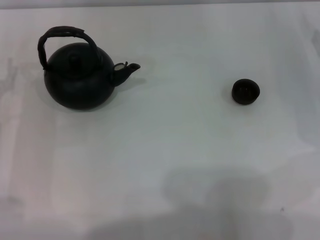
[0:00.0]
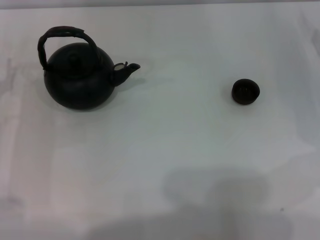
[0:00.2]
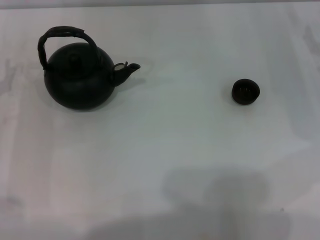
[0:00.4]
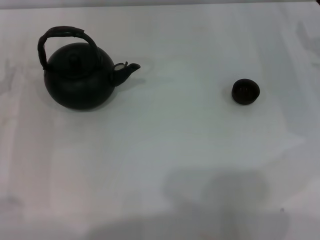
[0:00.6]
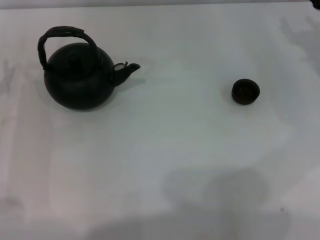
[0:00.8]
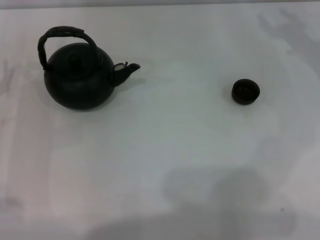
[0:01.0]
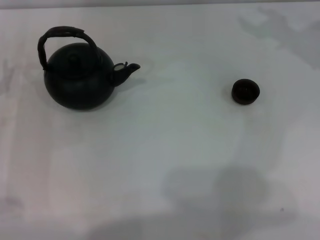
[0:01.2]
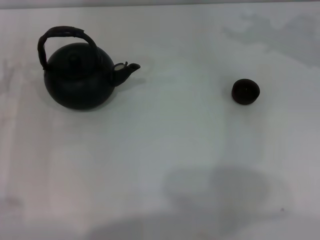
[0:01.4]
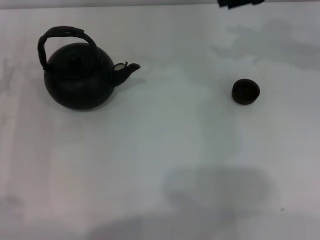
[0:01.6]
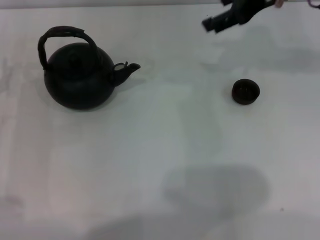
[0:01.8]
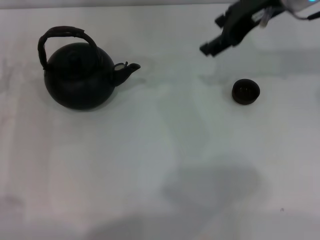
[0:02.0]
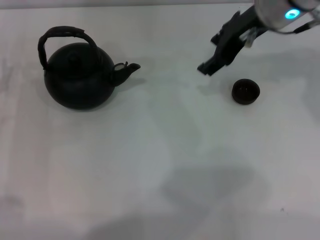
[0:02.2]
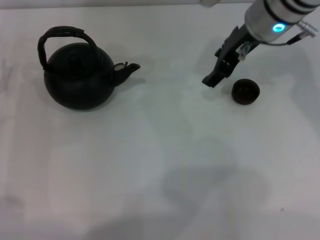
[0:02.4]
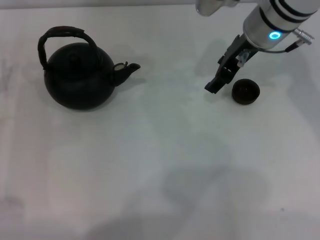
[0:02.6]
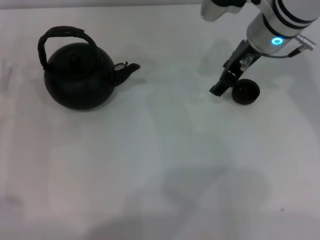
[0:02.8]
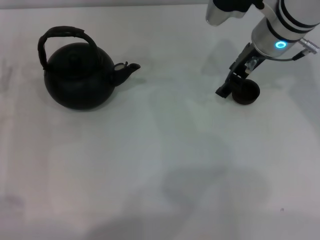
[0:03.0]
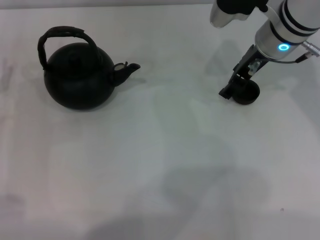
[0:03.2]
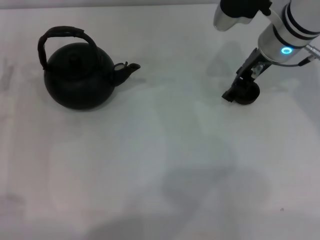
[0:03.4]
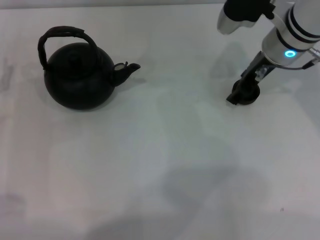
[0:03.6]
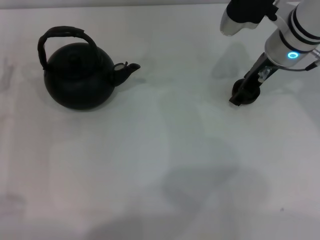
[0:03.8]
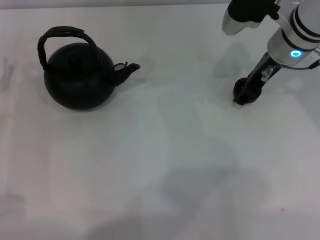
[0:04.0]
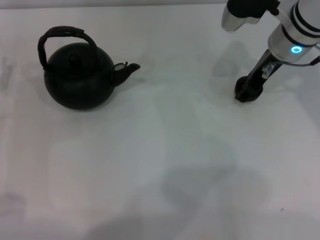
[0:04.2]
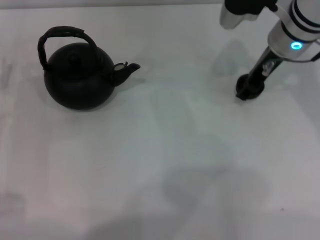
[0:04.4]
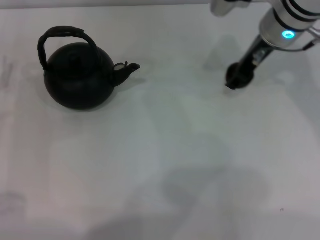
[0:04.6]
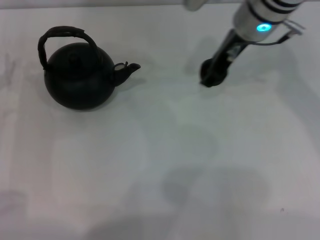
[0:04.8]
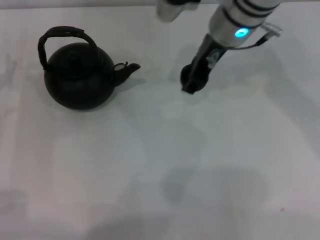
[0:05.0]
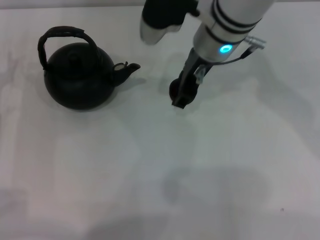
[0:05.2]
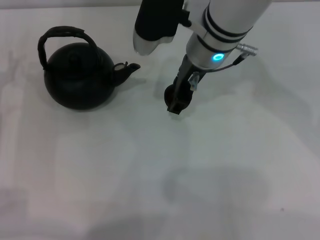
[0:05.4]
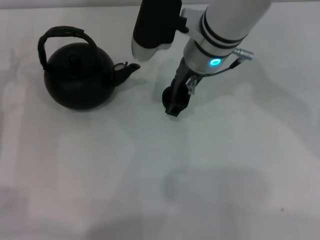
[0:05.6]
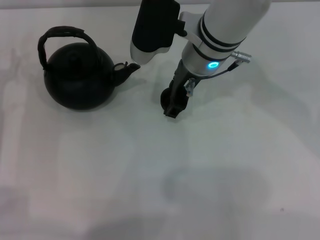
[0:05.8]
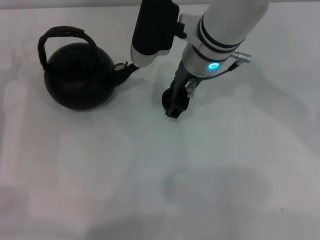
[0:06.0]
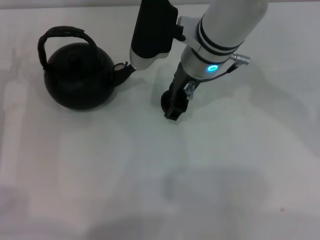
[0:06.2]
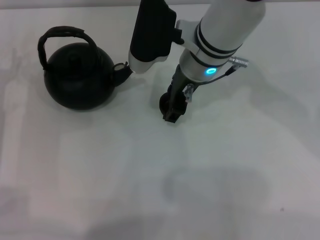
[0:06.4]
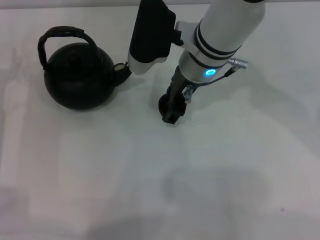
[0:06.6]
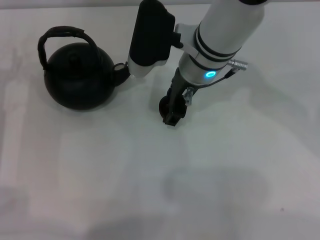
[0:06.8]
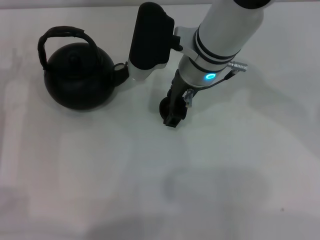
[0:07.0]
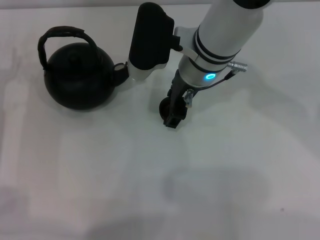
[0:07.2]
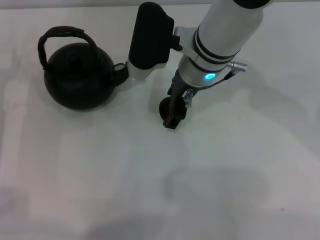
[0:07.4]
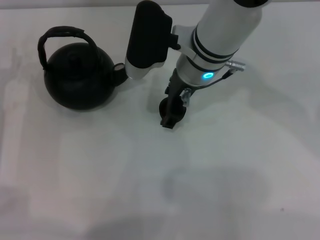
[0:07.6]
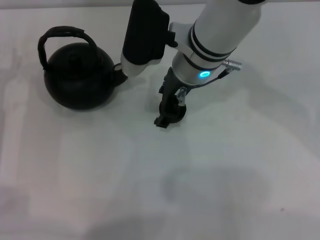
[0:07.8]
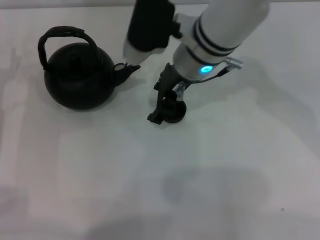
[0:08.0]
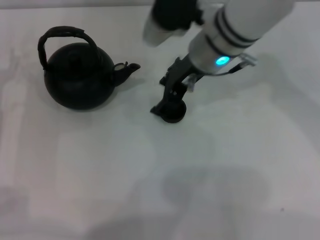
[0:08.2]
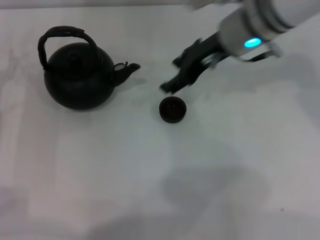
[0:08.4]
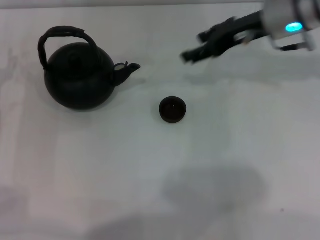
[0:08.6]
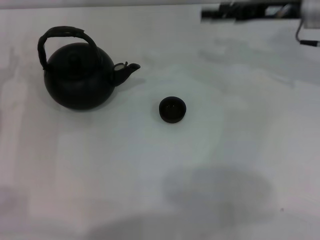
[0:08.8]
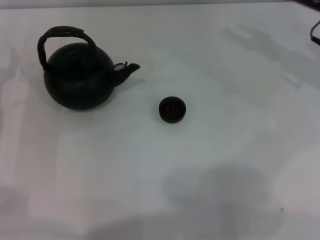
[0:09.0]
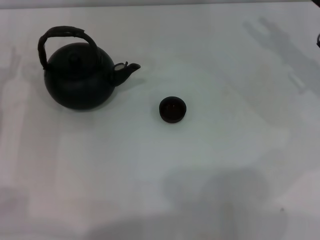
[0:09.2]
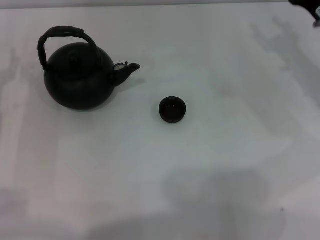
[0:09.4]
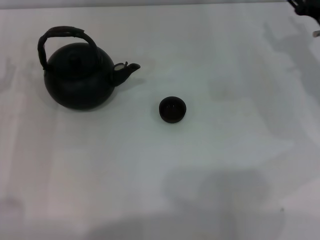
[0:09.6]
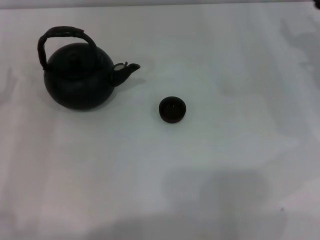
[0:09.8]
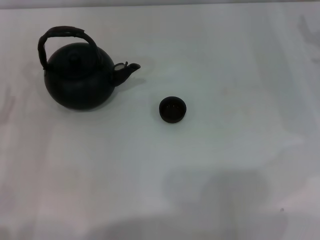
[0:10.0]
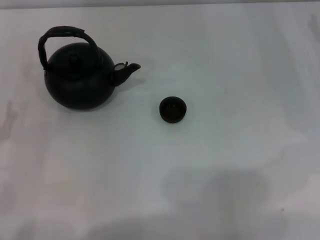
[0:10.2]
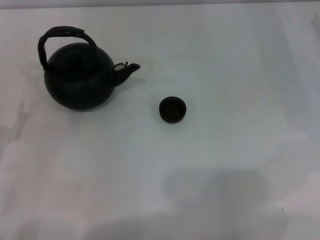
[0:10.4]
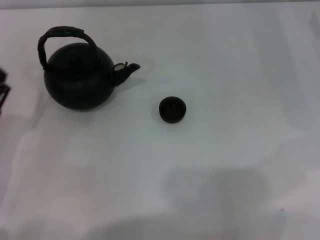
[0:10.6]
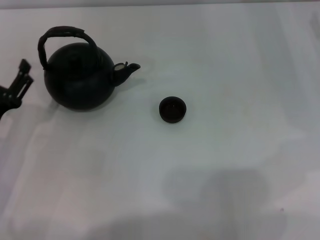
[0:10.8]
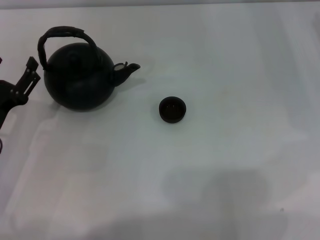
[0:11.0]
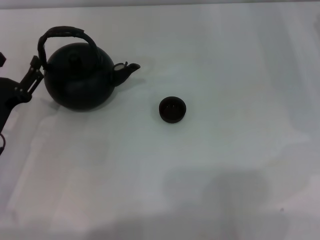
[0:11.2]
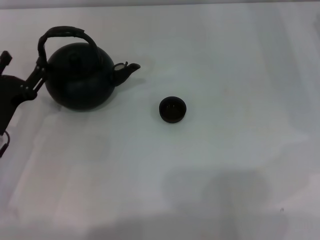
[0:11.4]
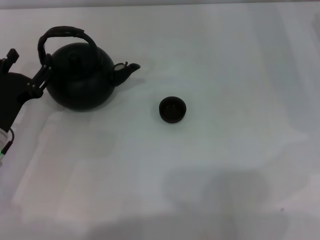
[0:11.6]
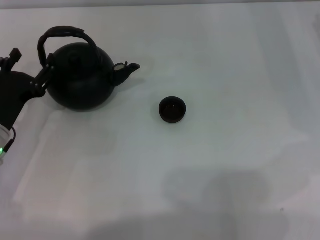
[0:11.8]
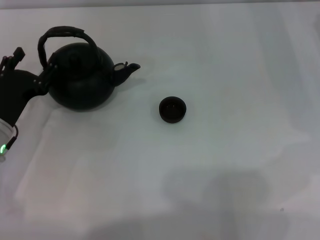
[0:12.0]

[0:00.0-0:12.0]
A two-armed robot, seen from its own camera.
Task of the whole recording: Grasp the handle of the teapot with one hand and pour tea into the teacup.
Step, 0:00.0 to 0:05.0: Pick up the teacup with the right gripper.
Step, 0:05.2 to 0:08.2: Place the teacup in the center of view with the right gripper.
0:01.6 to 0:03.0: The right gripper travels to the left and downward by roughly 10 cm.
0:03.0 to 0:04.4: The grippers stay close to where they were, moving slightly.
0:04.4 to 0:06.0: The right gripper travels to the left by approximately 10 cm.
0:06.0 to 0:07.6: Both grippers stay about where they are.
0:07.6 to 0:09.0: The right gripper shifts about 25 cm to the right.
0:10.4 to 0:12.0: The left gripper heads forward, covering about 10 cm.

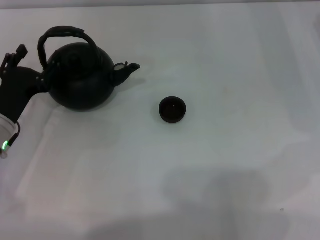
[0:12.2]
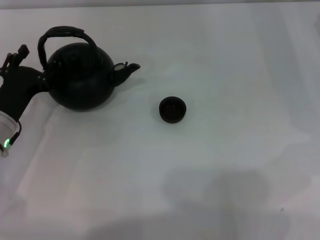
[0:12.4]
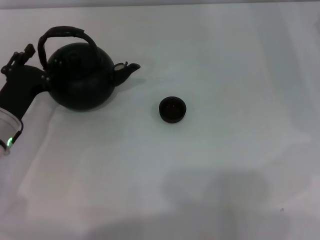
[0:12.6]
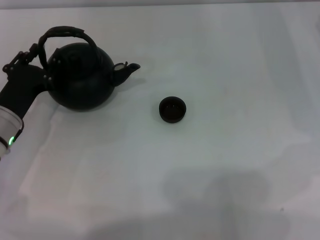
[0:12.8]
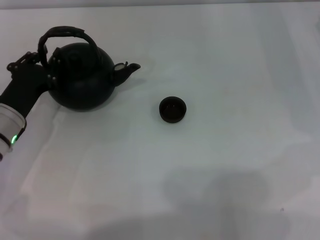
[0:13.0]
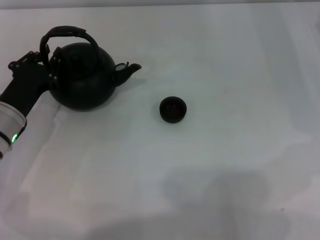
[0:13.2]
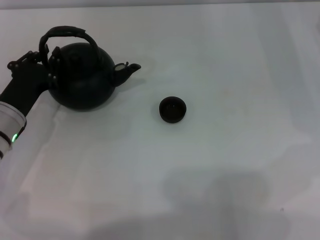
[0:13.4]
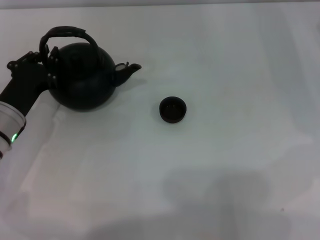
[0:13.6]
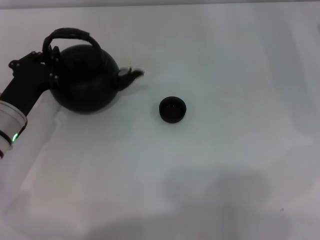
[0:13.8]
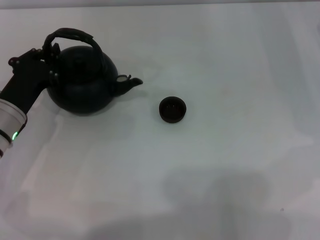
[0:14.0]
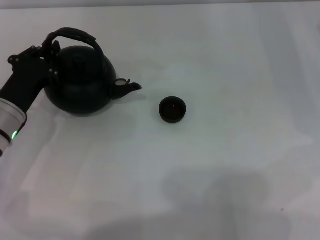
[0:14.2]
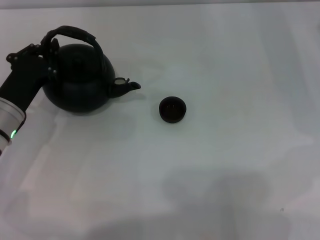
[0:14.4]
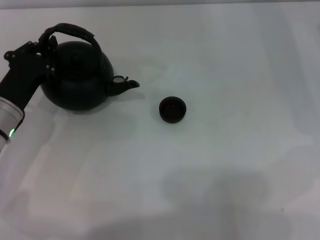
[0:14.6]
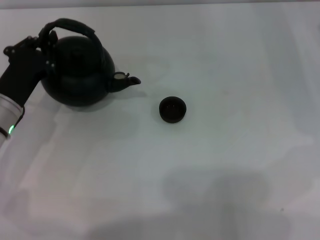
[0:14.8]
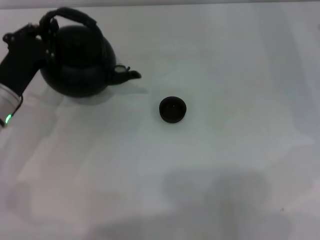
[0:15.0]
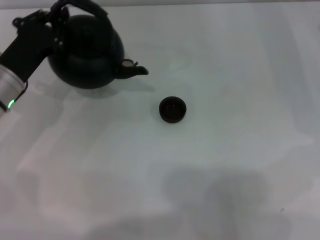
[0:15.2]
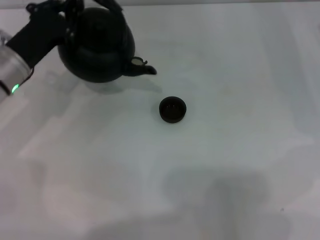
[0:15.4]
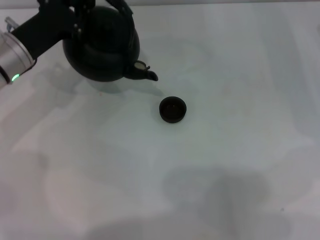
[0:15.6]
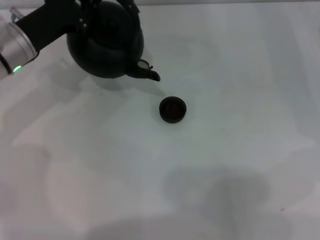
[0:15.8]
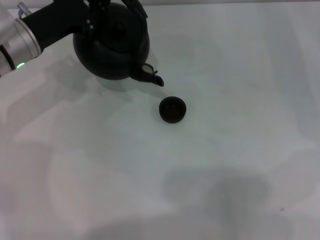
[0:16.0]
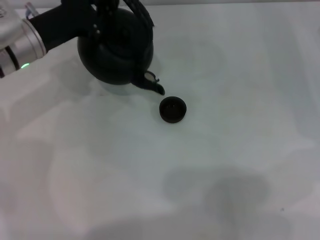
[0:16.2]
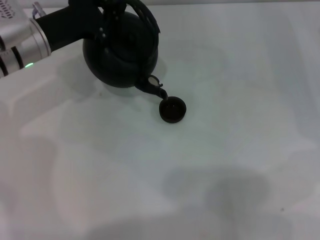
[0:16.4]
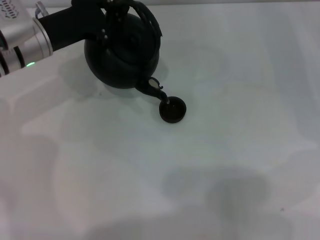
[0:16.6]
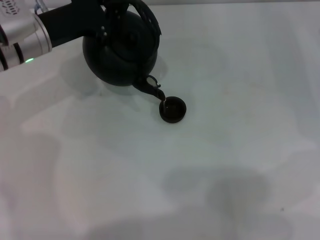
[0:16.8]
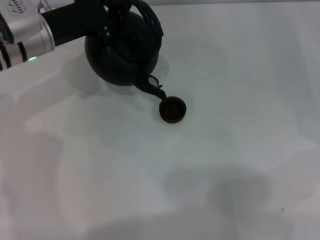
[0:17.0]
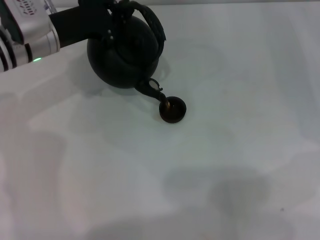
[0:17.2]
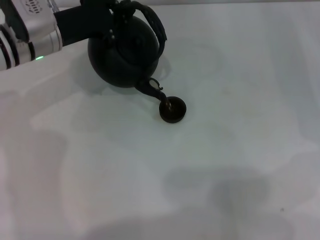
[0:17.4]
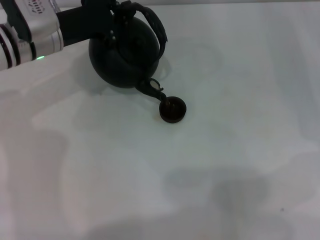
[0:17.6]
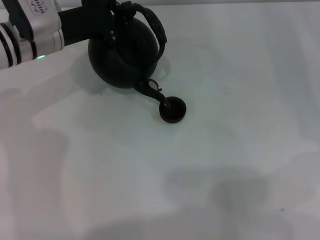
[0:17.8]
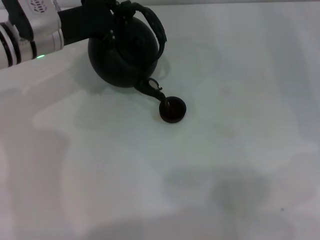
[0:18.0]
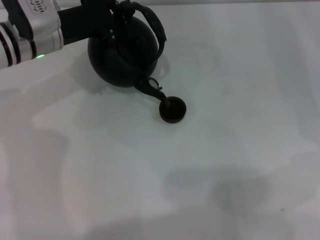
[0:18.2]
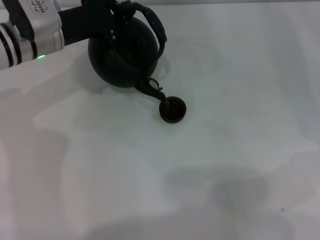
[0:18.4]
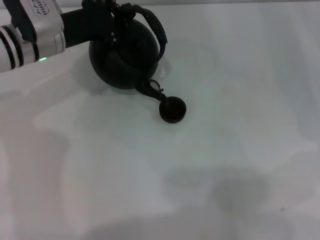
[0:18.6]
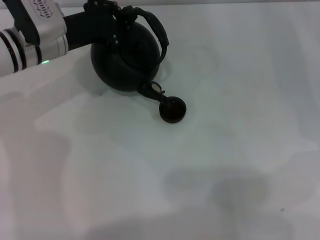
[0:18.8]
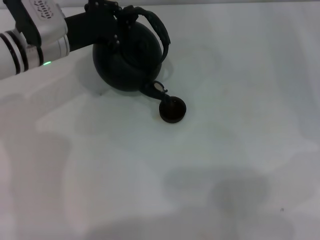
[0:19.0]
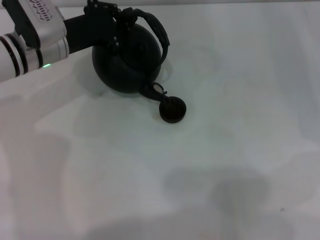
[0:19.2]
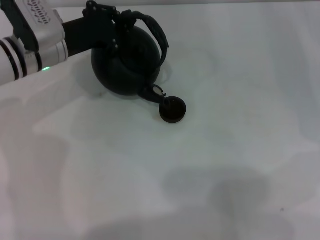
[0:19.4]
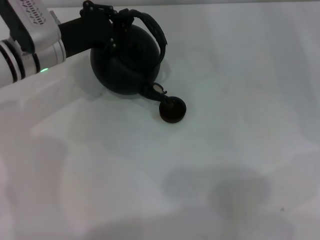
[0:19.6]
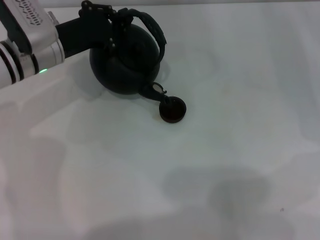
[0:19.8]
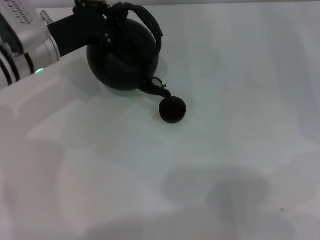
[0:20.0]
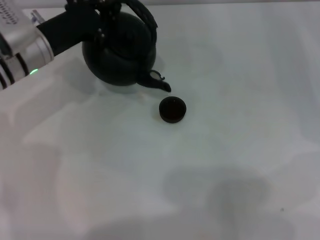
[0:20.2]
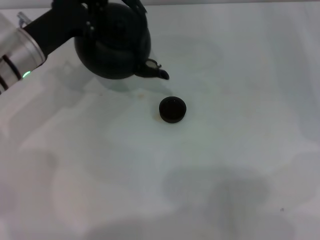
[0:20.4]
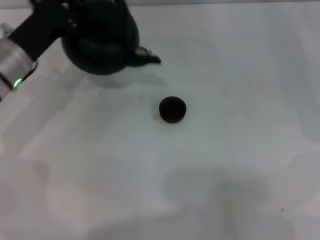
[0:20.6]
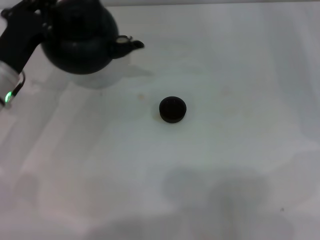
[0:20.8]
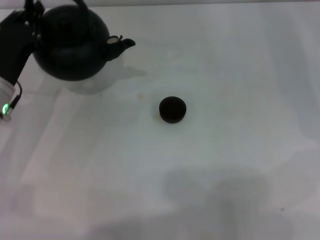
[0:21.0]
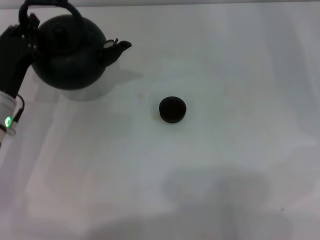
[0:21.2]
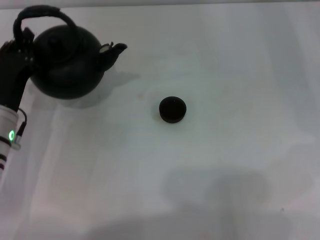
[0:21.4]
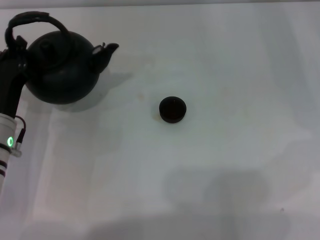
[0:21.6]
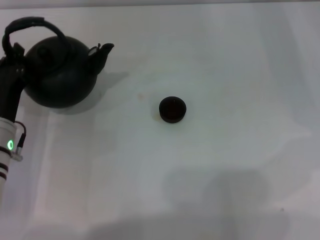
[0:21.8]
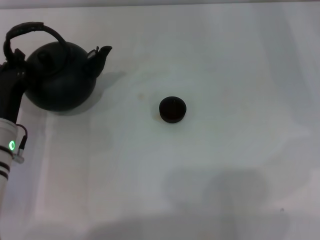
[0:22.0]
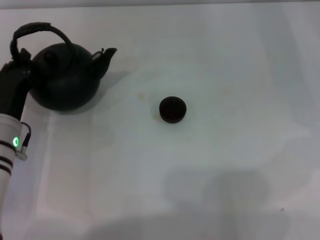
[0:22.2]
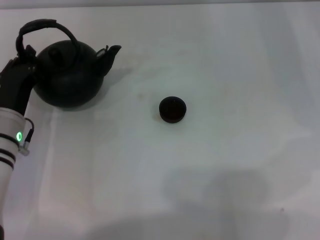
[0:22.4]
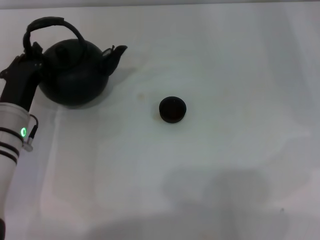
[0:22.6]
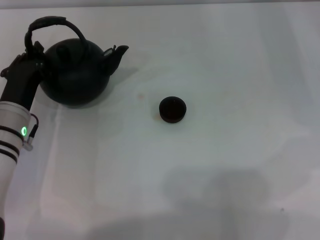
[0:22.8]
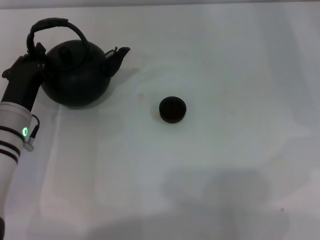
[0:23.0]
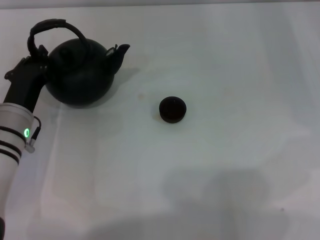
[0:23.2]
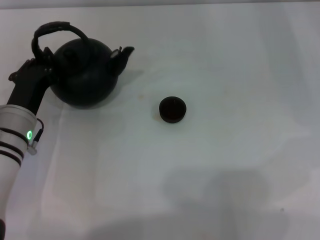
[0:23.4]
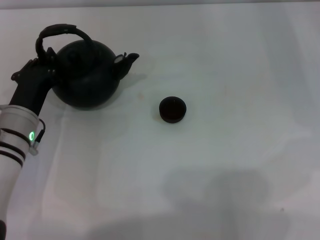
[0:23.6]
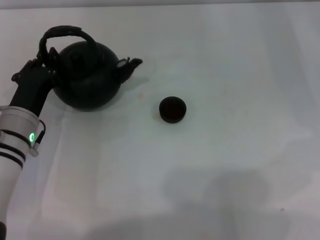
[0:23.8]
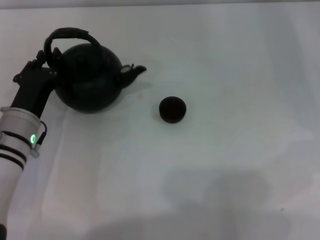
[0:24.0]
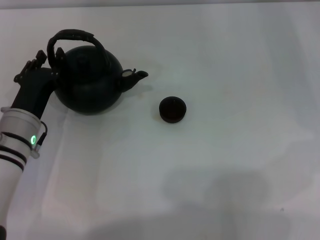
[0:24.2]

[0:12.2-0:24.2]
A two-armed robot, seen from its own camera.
Task of the whole recording: Grasp the handle of the teapot with one hand and pour tea into the teacup.
Step, 0:12.2 to 0:15.0: Pick up the teapot with the left gripper.
Step, 0:15.2 to 0:20.2: Pour tea into the teacup with the left gripper.
0:12.2 to 0:13.8: The left gripper closes.
0:13.8 to 0:15.2: The left gripper ends up roughly 5 cm from where it was.
0:15.2 to 0:16.6: The left gripper goes approximately 5 cm forward.
0:16.6 to 0:19.8: The grippers move only a little.
0:19.8 to 0:21.2: The left gripper goes about 10 cm backward and downward.
0:21.2 to 0:22.6: The grippers stay close to where they were, moving slightly.
0:22.6 to 0:24.2: The left gripper opens.
